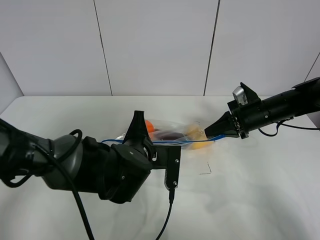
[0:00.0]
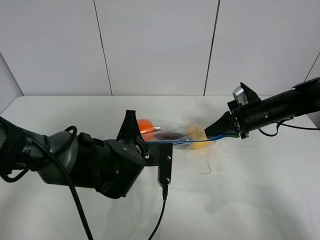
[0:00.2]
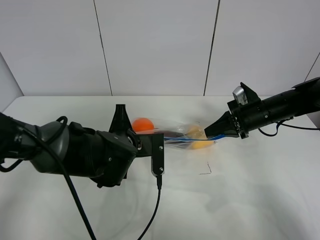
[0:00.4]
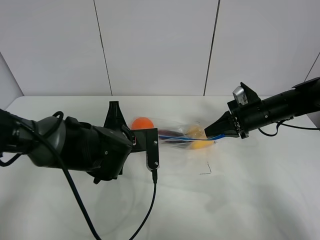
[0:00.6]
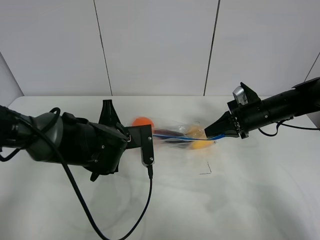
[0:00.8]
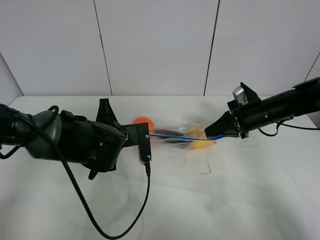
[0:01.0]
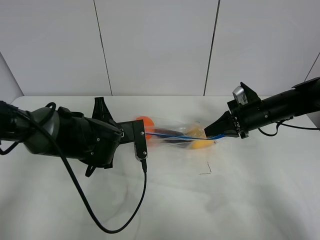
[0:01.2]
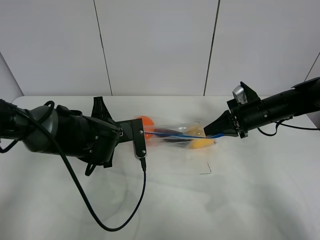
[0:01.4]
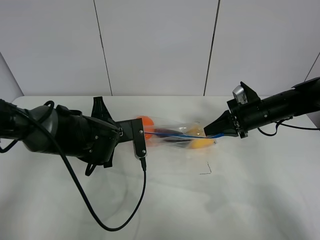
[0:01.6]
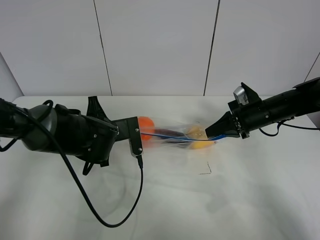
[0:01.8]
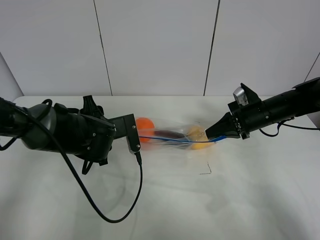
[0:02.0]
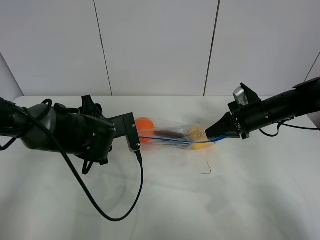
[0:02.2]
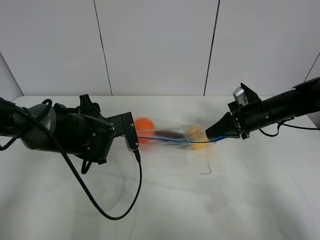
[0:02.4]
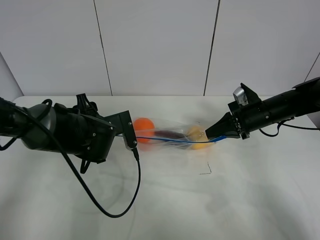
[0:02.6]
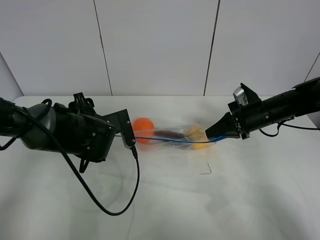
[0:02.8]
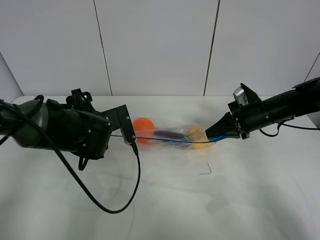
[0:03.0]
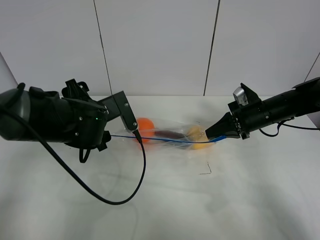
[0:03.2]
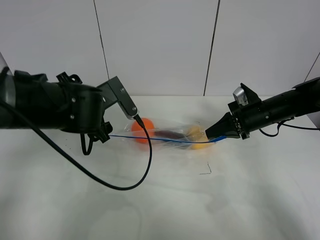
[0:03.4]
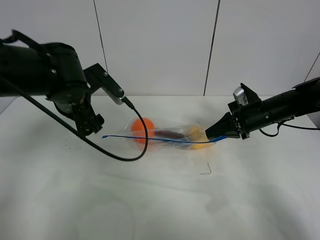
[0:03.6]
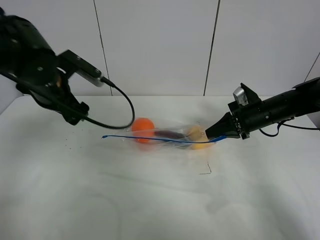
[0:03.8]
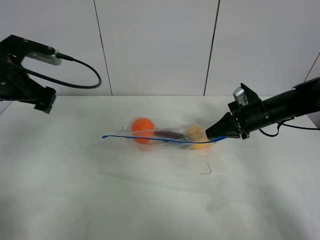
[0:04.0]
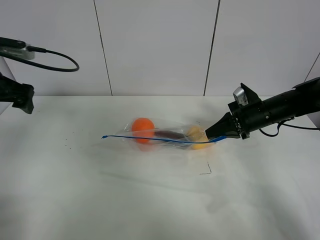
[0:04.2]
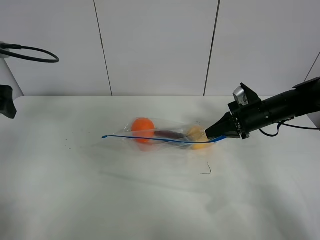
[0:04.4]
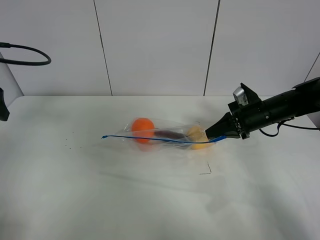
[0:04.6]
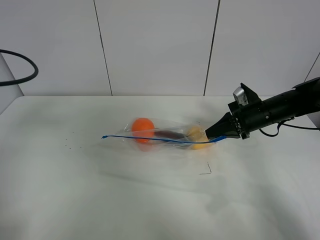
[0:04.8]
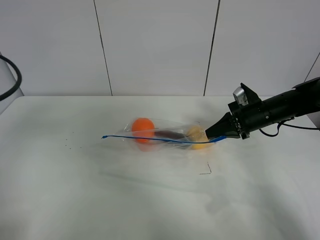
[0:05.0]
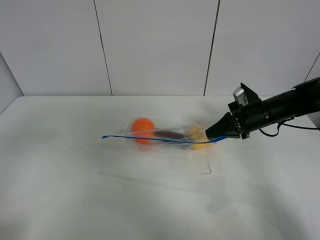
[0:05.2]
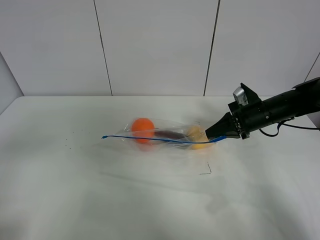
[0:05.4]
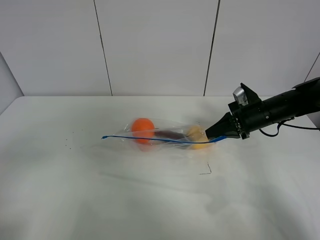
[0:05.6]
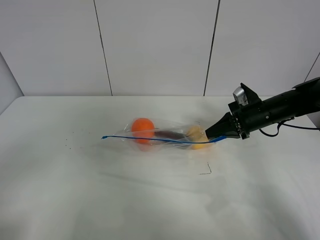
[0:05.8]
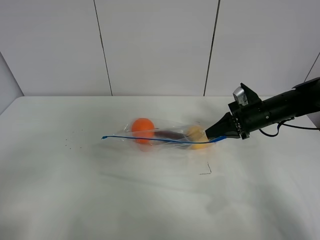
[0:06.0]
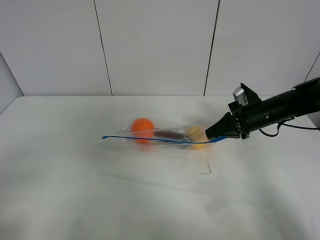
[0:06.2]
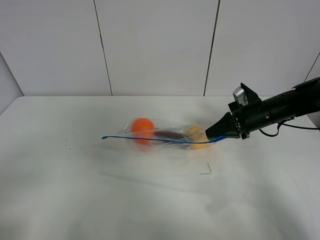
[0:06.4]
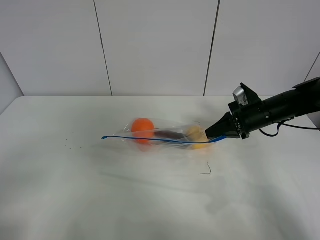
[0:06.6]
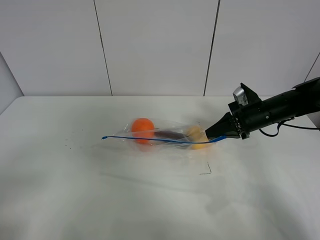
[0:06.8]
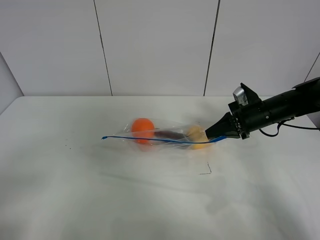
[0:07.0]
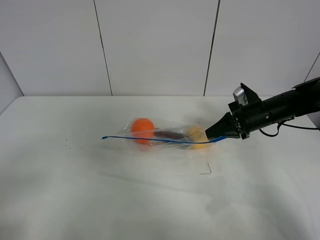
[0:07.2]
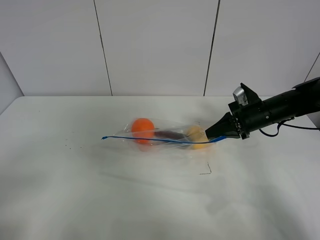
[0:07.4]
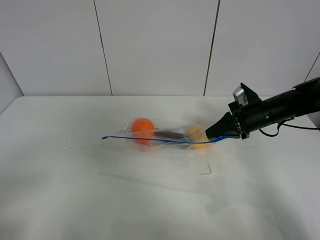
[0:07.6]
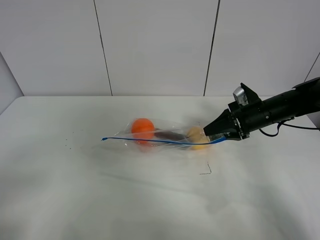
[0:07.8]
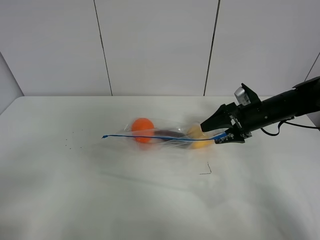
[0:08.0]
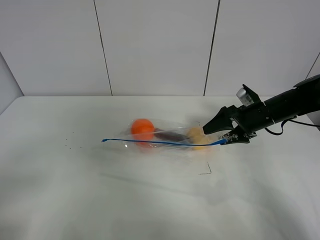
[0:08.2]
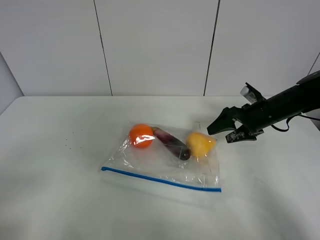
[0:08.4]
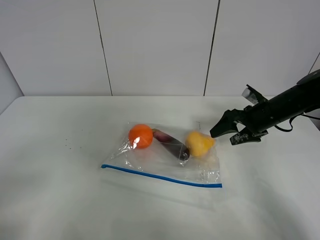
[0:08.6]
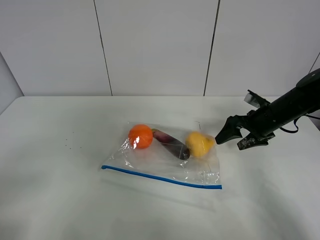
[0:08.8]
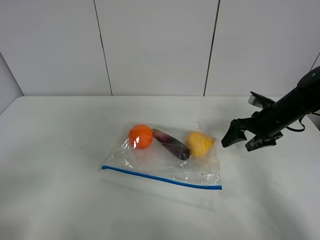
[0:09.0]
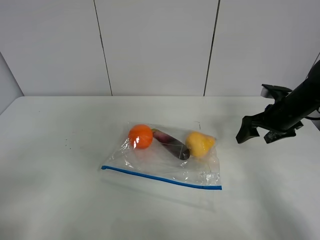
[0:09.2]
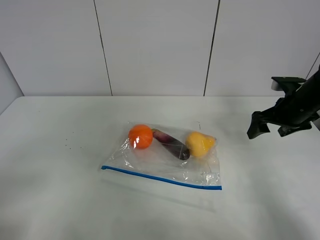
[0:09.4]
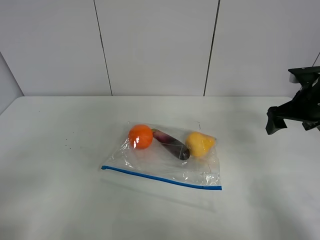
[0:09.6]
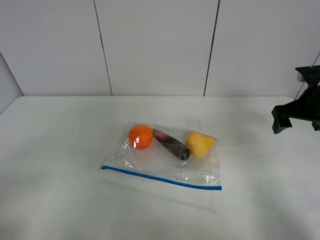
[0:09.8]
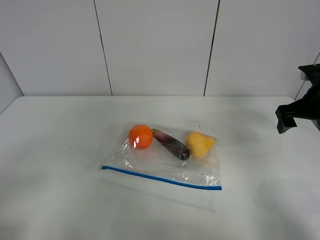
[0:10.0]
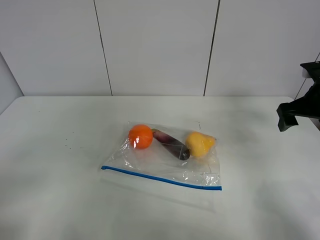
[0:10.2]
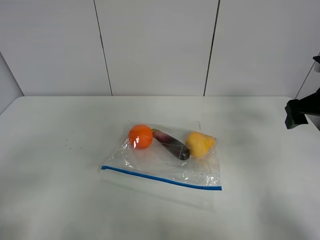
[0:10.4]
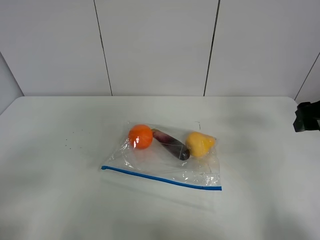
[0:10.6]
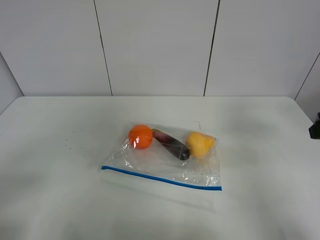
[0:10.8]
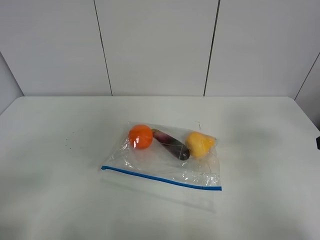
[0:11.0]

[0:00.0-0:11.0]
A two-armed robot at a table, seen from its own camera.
0:00.0 to 0:01.6: The left gripper goes about 10 cm to the left and forward.
0:01.6 to 0:03.2: The left gripper travels upward by about 5 cm, and opens its fingers.
0:03.2 to 0:04.8: The left gripper shifts some 25 cm to the left, upward and backward.
0:04.8 to 0:06.2: The left gripper shifts roughly 20 cm backward.
0:06.2 to 0:07.8: The right gripper opens its fingers.
0:07.8 to 0:09.4: The right gripper moves to the right and upward, some 10 cm, and opens its fingers.
0:09.4 to 0:11.0: The right gripper moves backward and upward, roughly 20 cm.

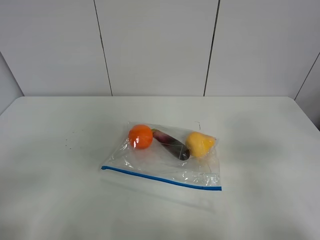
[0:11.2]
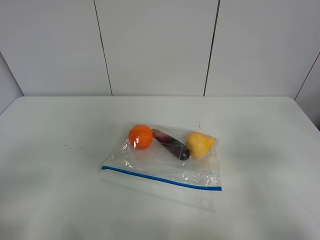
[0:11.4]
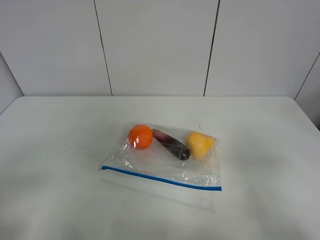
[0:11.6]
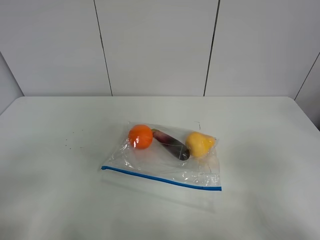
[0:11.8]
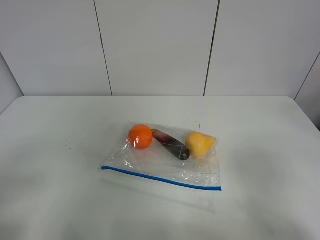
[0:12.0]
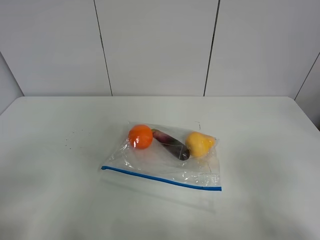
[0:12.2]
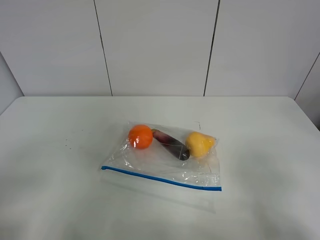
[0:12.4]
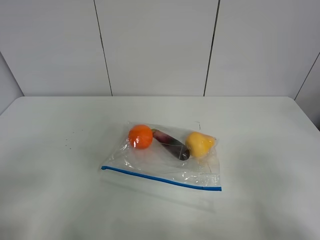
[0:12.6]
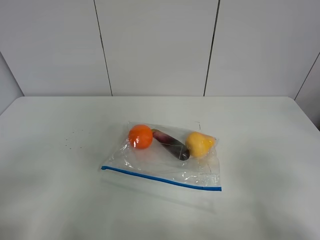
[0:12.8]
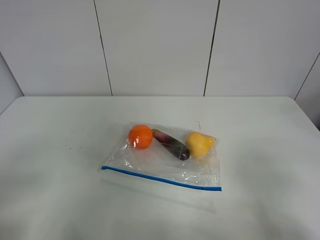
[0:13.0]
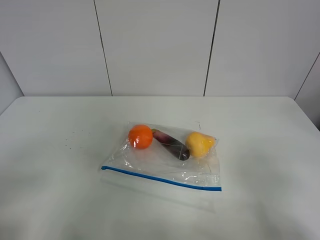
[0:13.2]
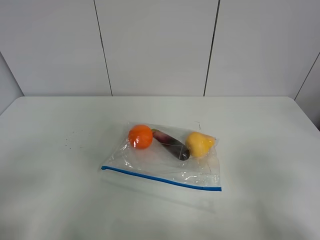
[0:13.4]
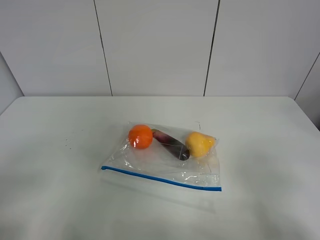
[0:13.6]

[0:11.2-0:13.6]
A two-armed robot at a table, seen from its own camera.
0:12.4 to 0:13.6: Both grippers stay put.

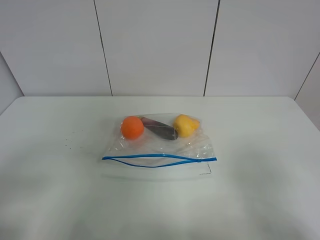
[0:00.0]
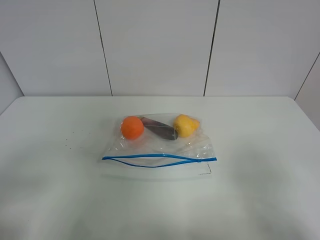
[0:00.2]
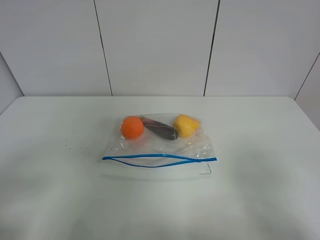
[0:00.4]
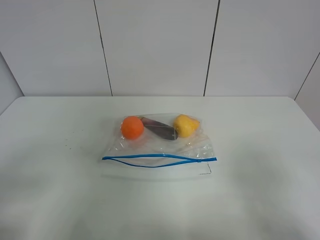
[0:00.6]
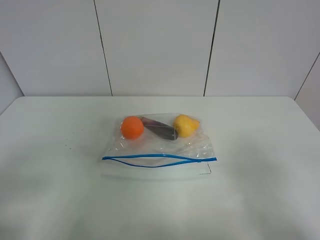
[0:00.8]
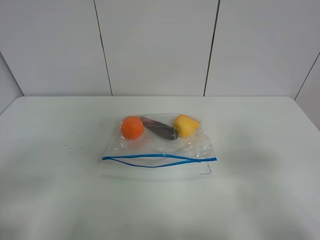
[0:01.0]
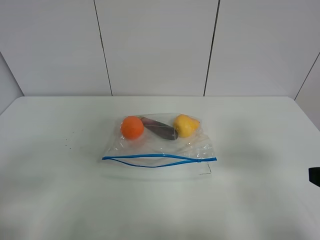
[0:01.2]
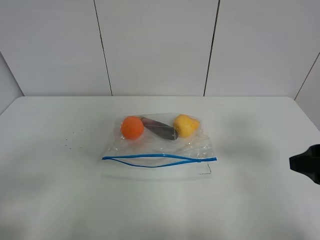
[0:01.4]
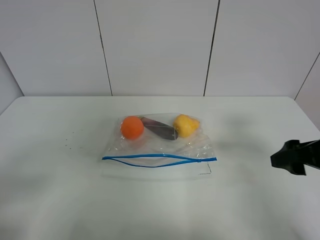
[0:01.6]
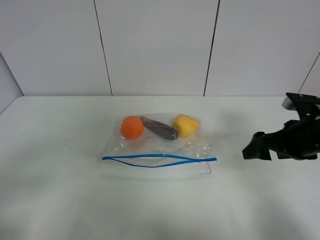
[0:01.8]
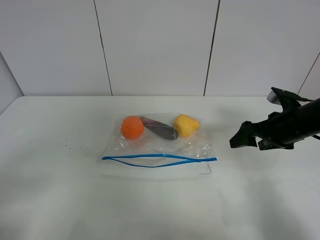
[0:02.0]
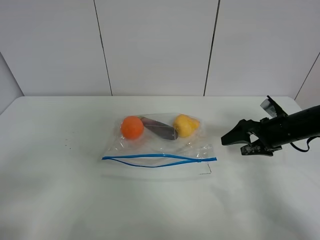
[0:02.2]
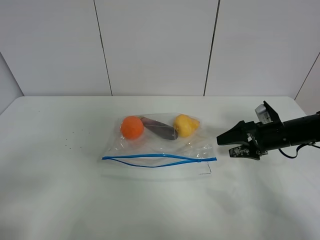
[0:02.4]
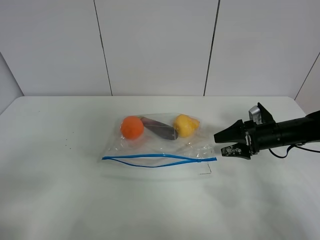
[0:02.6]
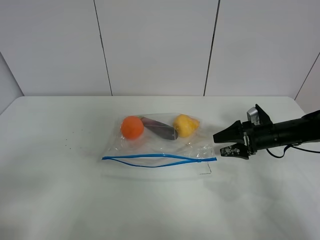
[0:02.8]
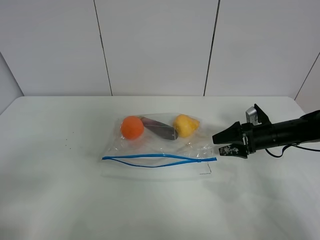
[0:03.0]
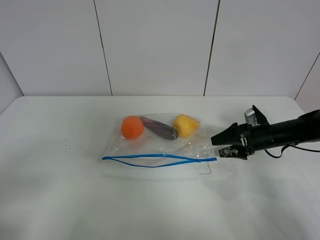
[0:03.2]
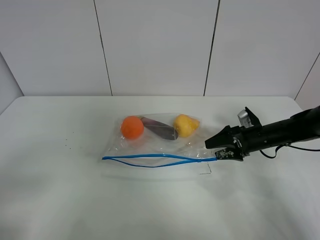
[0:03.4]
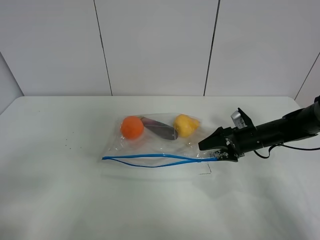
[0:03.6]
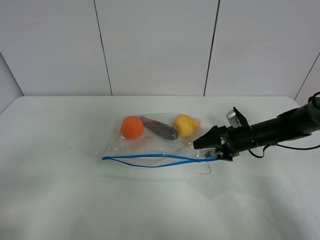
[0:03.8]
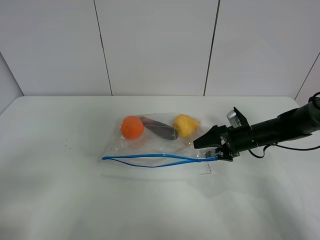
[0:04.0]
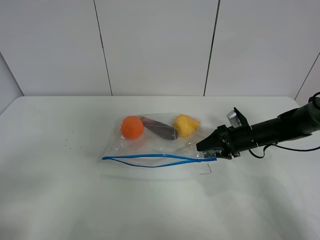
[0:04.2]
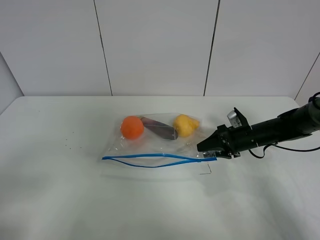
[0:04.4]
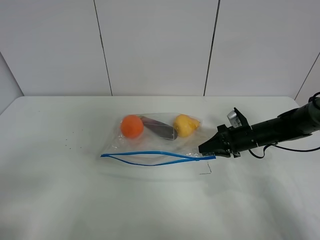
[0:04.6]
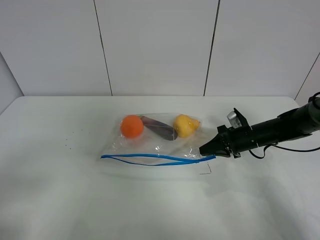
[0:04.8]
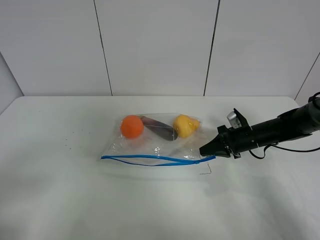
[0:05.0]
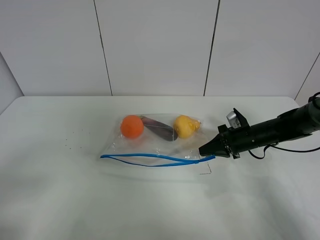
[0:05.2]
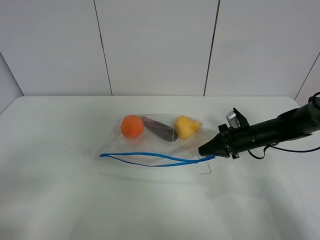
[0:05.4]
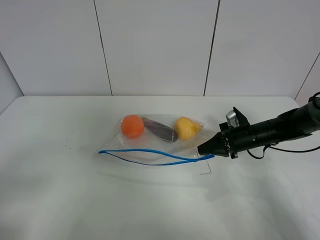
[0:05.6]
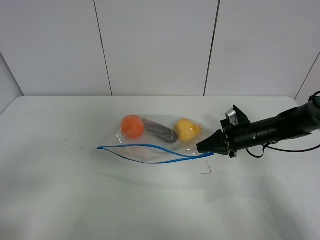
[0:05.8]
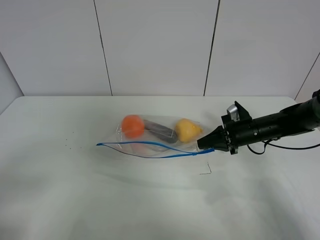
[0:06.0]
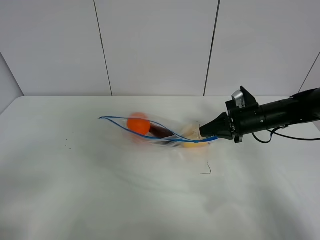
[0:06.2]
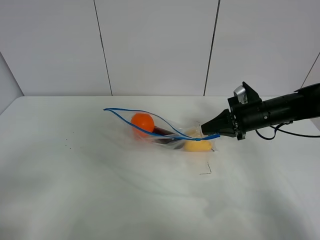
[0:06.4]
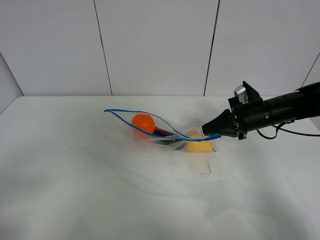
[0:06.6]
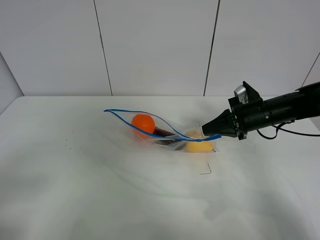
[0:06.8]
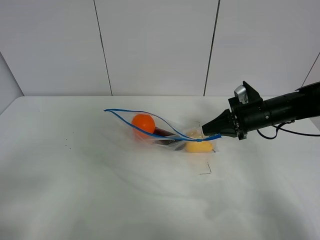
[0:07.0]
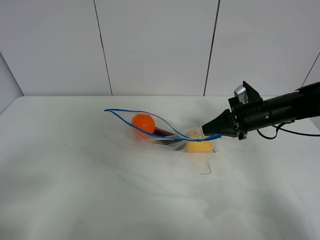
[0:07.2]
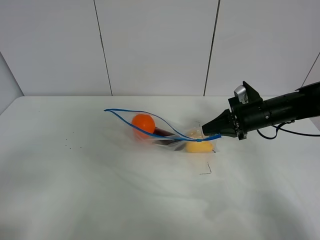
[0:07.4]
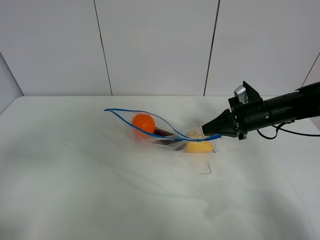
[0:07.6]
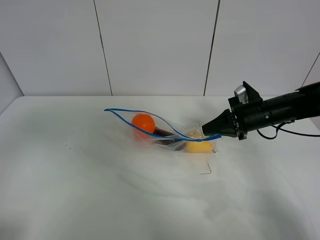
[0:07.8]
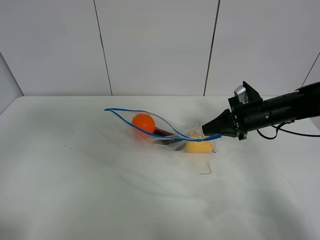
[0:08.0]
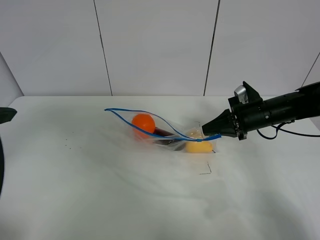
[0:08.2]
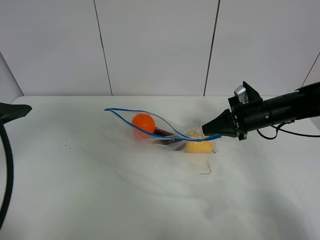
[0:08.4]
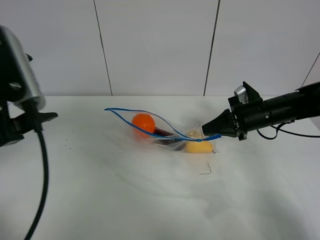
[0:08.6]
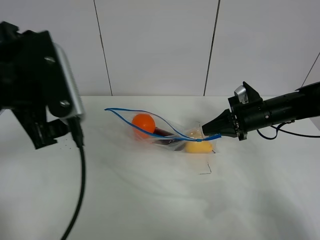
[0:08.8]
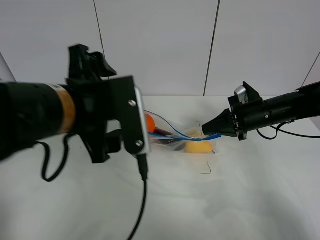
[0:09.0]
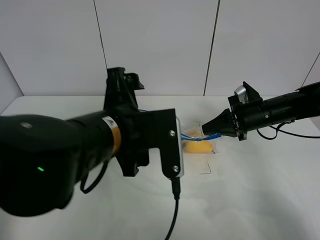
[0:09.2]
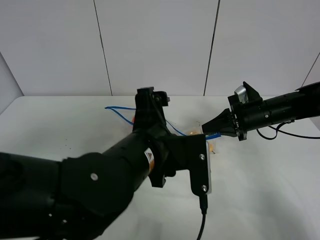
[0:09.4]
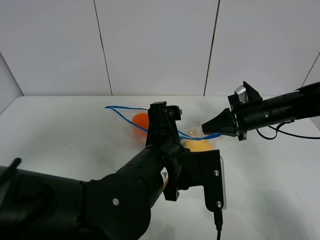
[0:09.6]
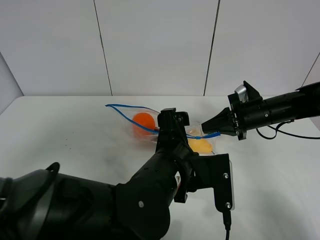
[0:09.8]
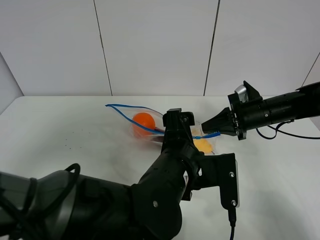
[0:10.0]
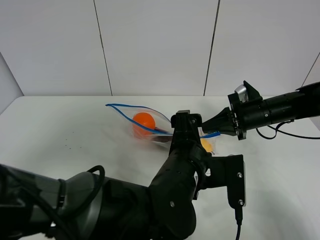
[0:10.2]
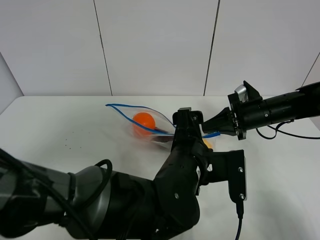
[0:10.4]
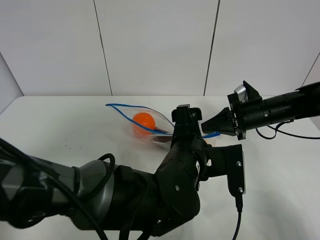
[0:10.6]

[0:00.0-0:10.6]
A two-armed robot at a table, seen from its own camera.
Step, 0:00.0 to 0:04.8: Grasp the fruit bag with right gripper.
Step, 0:05.0 to 0:06.8: Lift the fruit bag with your right gripper.
0:00.0 to 0:01.6: The right gripper moves forward, about 20 cm.
0:01.6 to 0:03.0: The right gripper moves forward and downward, some 20 cm.
0:03.0 to 0:04.6: The right gripper closes its fingers.
0:04.6 to 0:06.0: The grippers make only small movements.
0:06.0 to 0:07.6: The two grippers go approximately 5 cm upward.
0:07.6 to 0:09.0: The left gripper goes about 25 cm to the right and forward.
0:09.0 to 0:10.6: The left gripper shifts roughly 20 cm to the right and downward.
